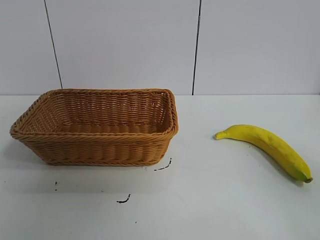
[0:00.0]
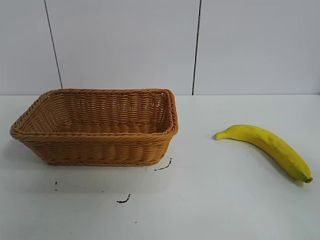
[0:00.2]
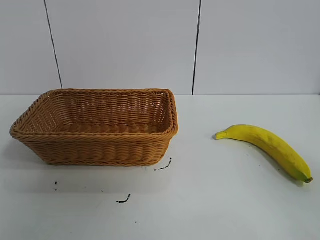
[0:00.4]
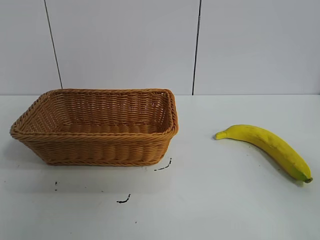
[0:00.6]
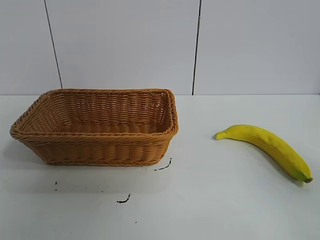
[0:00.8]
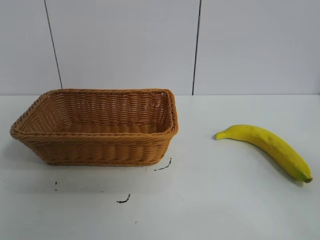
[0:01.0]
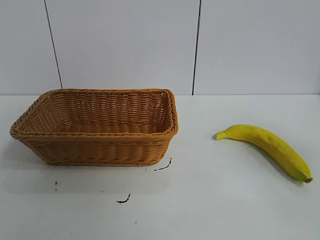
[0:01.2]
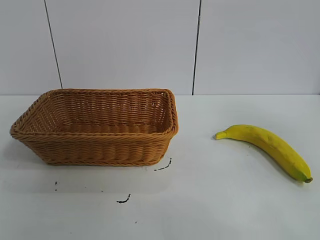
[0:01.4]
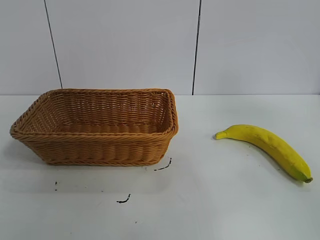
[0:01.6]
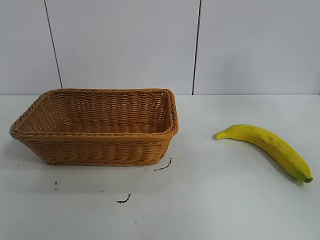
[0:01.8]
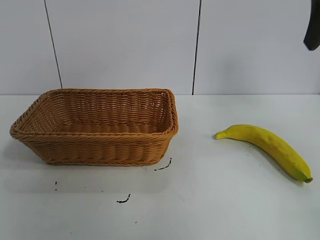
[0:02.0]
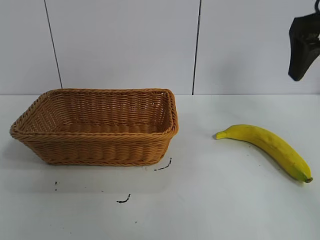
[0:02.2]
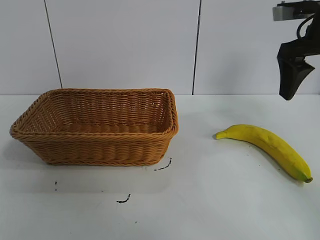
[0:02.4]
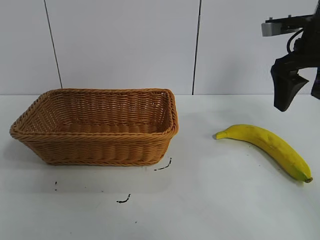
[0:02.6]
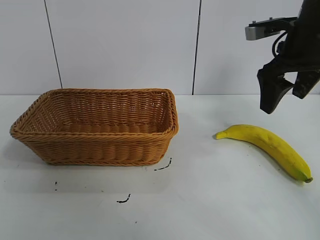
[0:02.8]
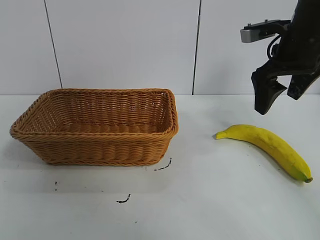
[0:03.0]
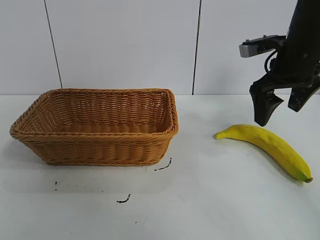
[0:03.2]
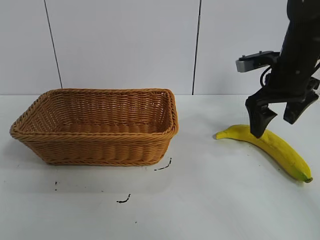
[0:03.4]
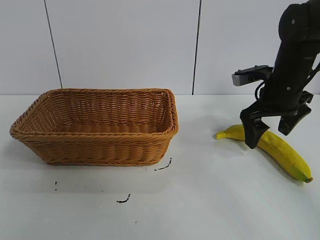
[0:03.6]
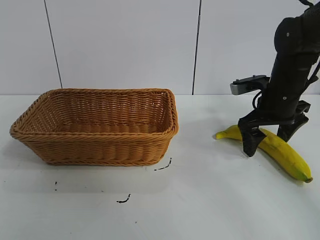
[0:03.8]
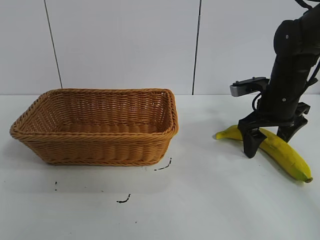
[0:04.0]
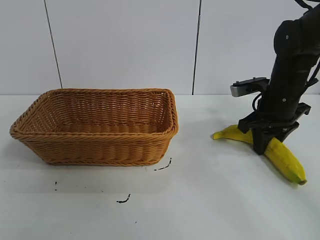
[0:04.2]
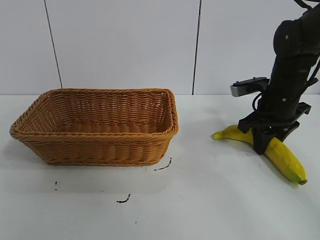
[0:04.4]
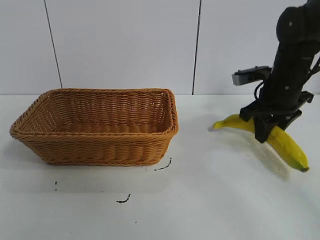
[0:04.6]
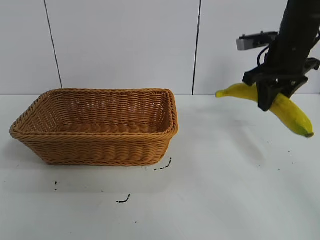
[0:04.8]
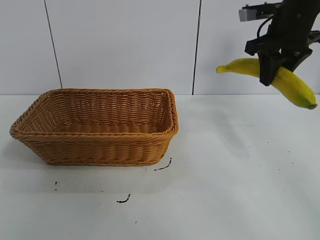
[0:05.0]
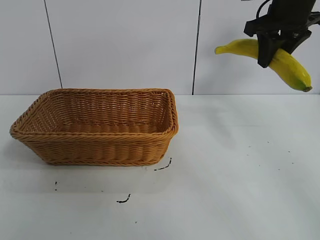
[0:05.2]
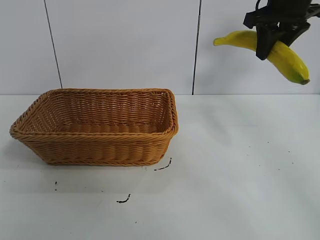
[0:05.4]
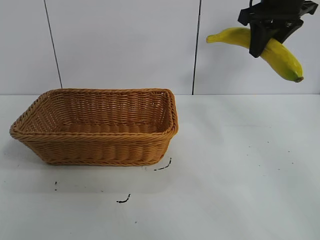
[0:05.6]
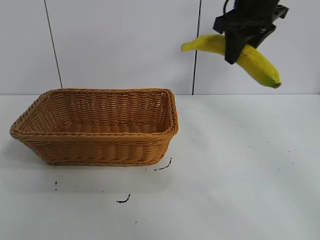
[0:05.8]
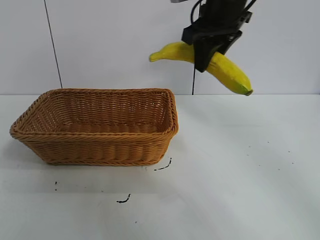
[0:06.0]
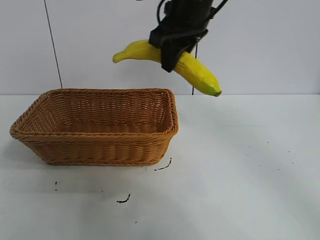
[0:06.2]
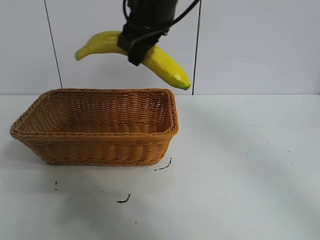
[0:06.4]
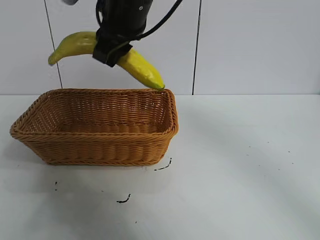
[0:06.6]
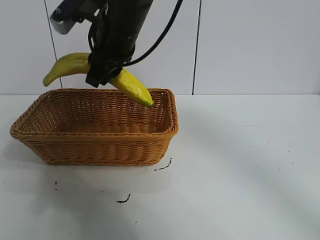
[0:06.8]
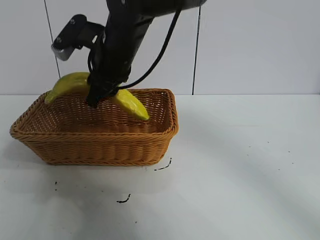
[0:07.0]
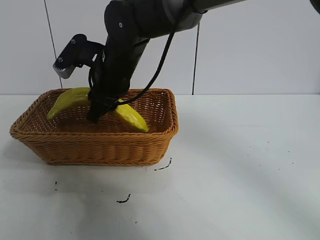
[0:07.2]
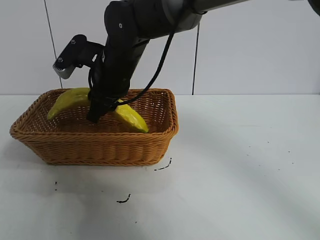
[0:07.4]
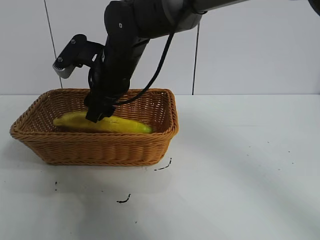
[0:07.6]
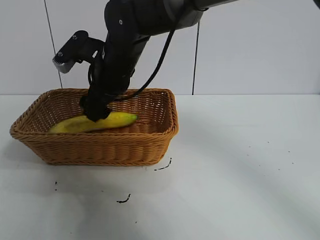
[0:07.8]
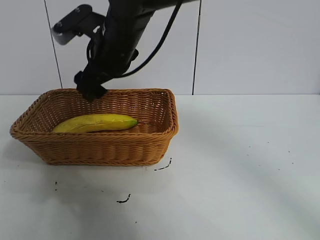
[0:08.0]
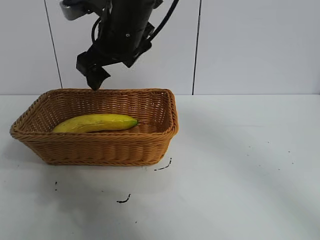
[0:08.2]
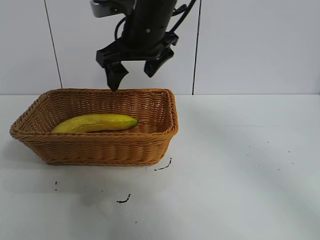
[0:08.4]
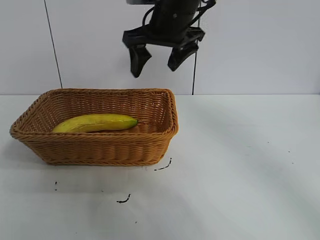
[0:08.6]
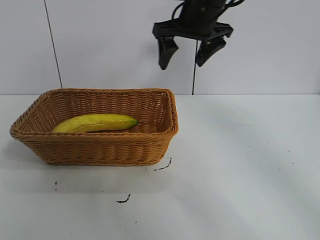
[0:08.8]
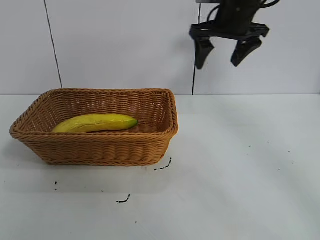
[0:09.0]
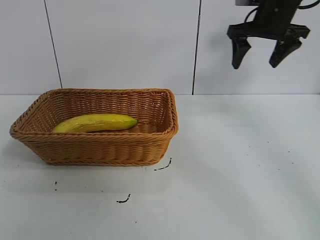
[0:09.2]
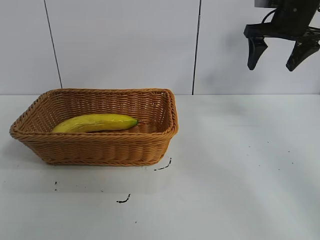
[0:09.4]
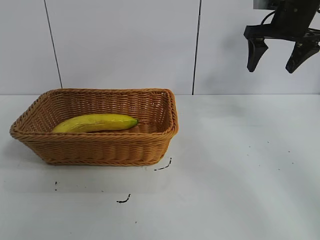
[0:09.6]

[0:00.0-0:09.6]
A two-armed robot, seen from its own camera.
Task of the whole recording: pick up the banana and put it into the basket.
Step, 0:00.8 to 0:04.2: Grasp the banana with right gripper.
Step, 0:04.4 to 0:08.0: Place the banana in the basket with right gripper.

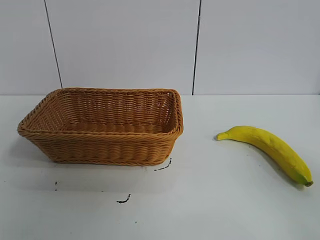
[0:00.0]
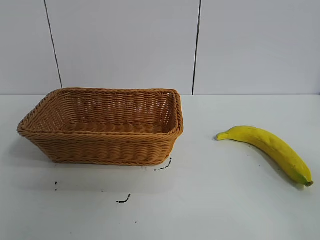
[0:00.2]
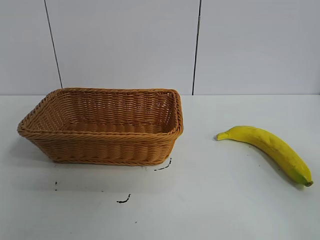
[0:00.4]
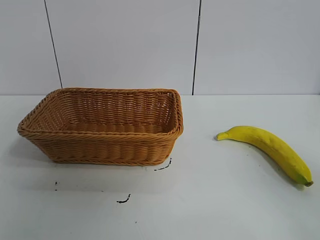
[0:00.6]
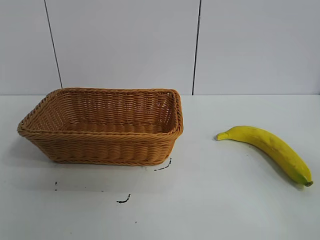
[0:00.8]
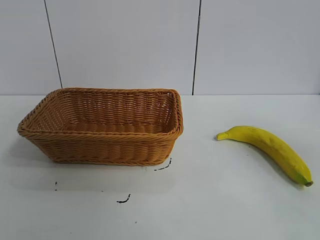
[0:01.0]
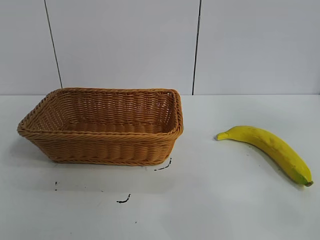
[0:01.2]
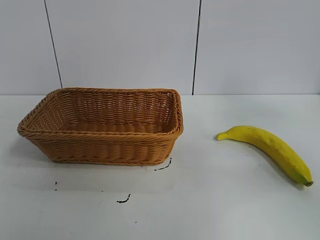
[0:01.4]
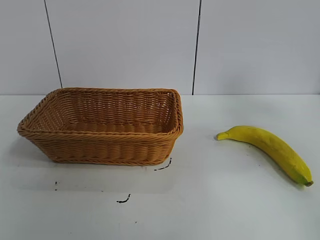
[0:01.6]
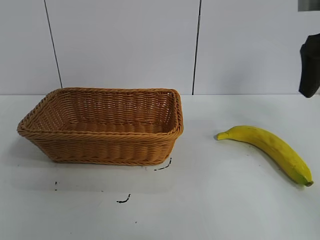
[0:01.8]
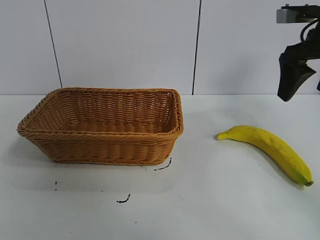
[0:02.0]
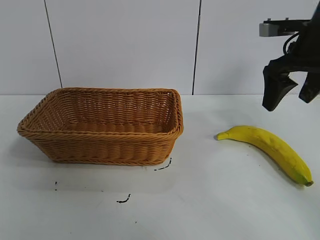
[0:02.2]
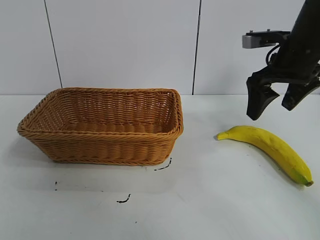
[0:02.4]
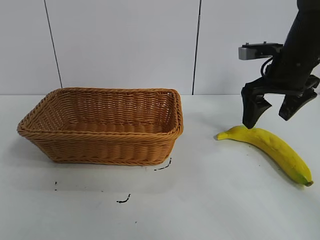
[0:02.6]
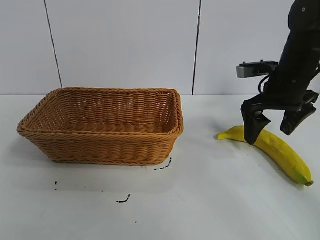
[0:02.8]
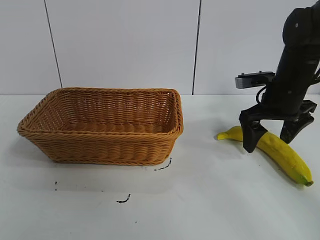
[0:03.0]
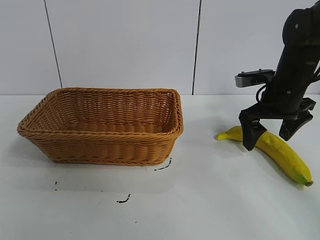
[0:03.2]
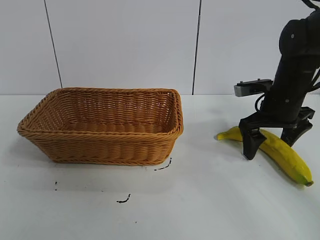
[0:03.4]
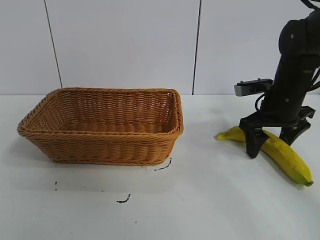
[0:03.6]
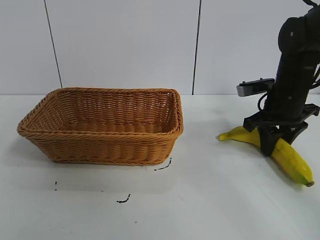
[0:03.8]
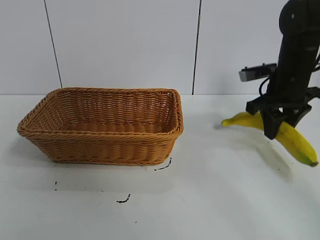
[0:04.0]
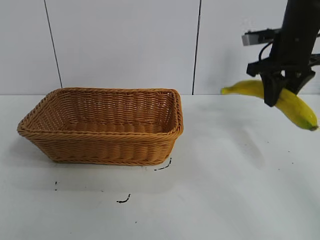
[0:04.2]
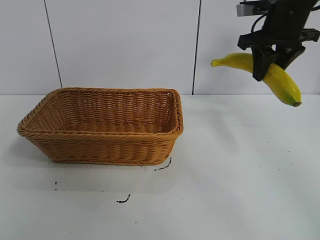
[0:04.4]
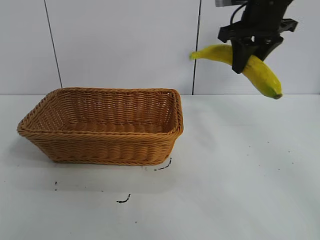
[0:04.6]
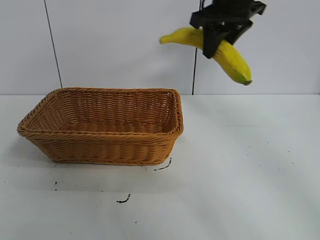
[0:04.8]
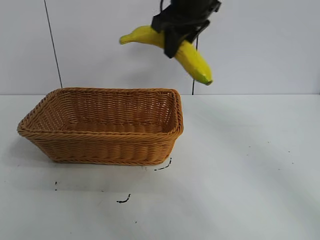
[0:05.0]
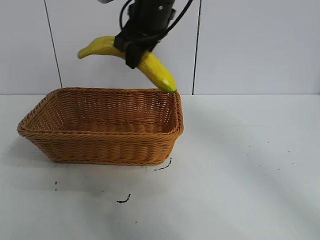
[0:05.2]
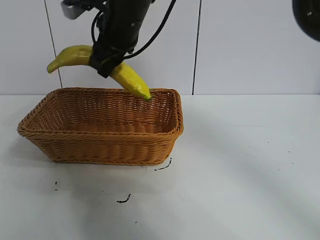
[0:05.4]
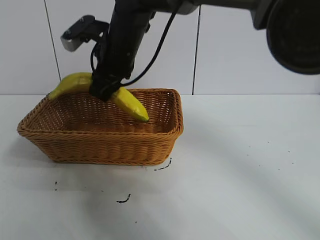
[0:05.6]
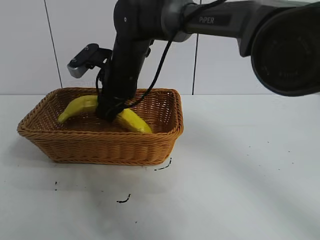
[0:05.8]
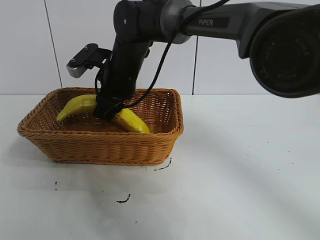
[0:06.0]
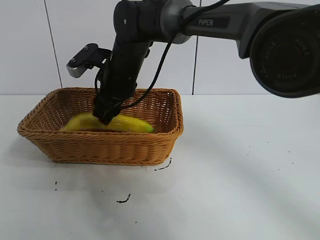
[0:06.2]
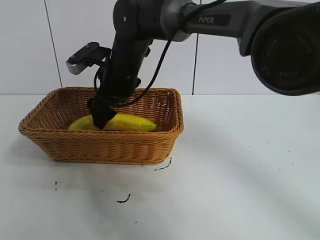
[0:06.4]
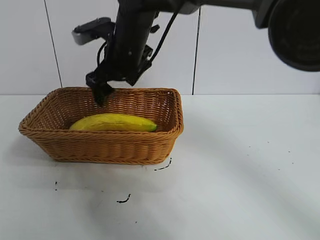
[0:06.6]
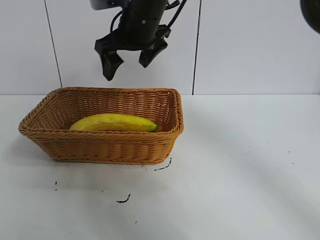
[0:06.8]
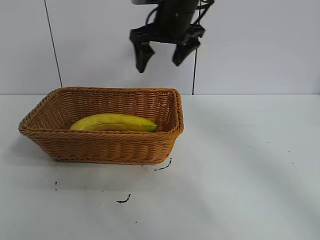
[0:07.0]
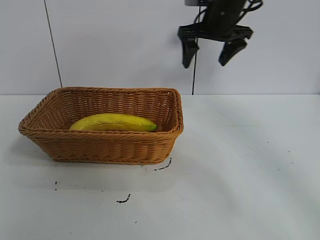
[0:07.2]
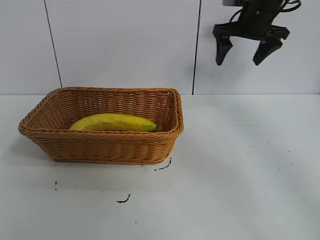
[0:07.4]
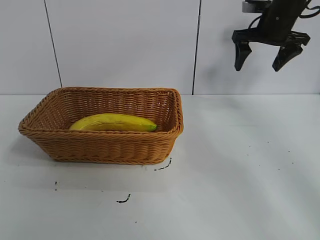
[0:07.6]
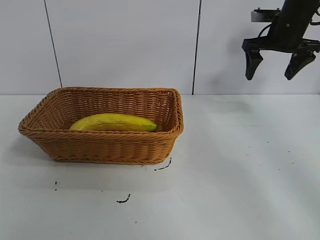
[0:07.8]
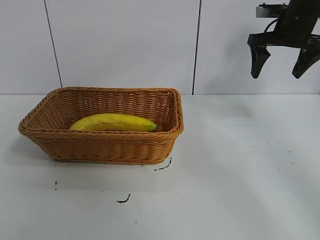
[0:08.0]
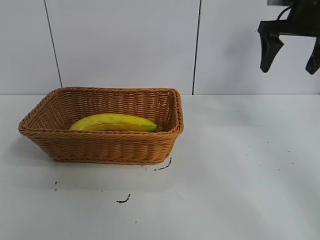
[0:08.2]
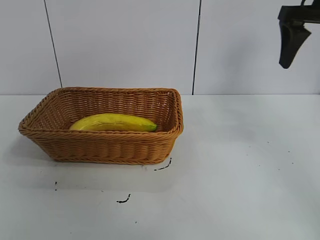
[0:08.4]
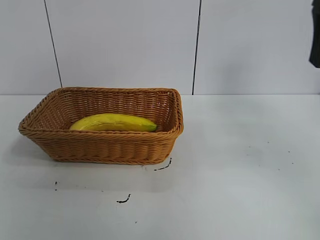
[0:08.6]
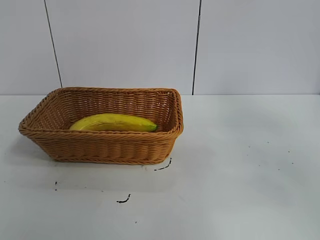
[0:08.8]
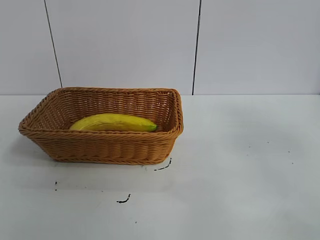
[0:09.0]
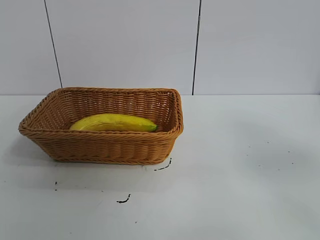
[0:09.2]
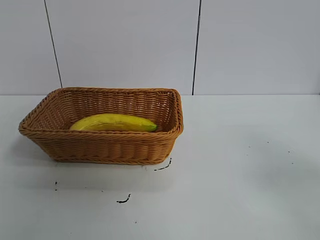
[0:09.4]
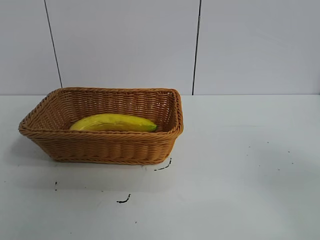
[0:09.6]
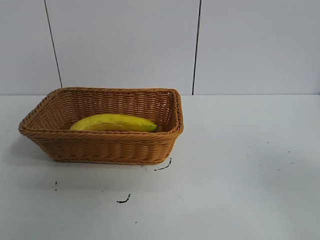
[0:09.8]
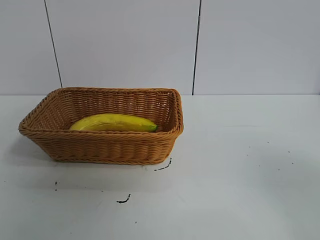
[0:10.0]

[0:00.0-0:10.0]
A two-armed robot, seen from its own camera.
Task of the whole recording: pick up the banana and put it into the basket.
Step, 0:00.8 to 0:03.6: Grasp the banana with right gripper.
Step, 0:03.8 to 0:06.4: Place the banana in the basket with right gripper.
